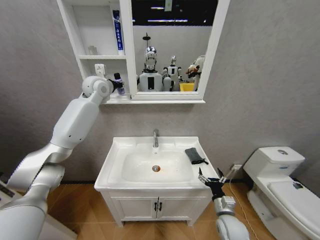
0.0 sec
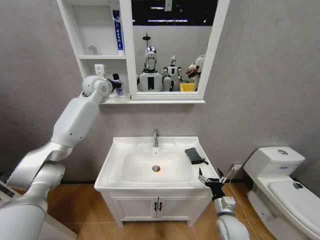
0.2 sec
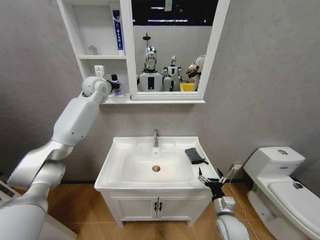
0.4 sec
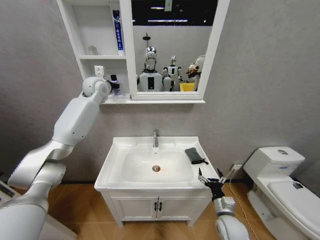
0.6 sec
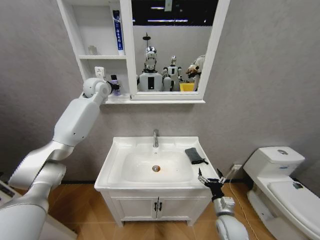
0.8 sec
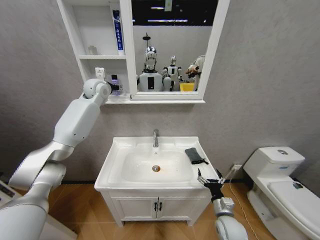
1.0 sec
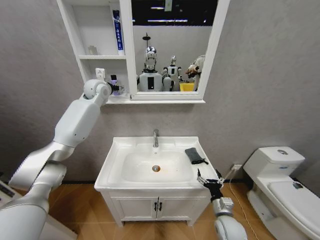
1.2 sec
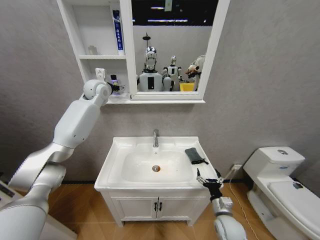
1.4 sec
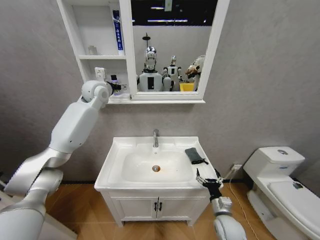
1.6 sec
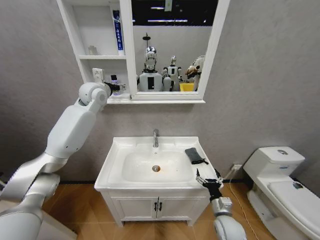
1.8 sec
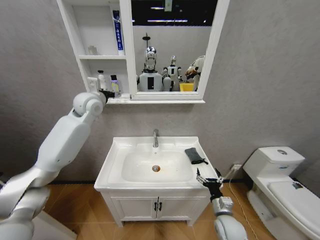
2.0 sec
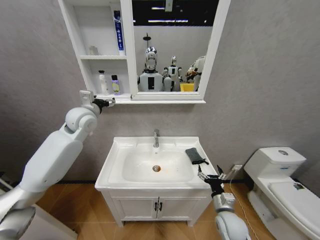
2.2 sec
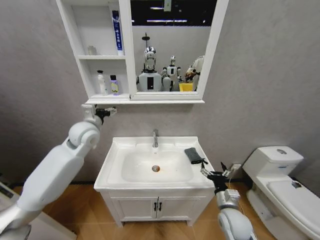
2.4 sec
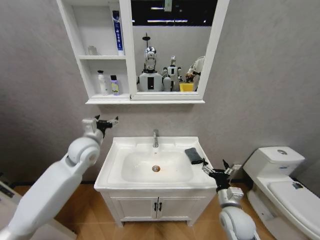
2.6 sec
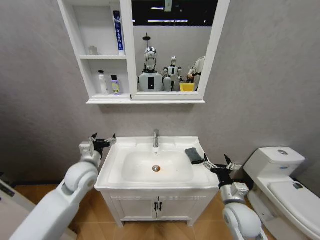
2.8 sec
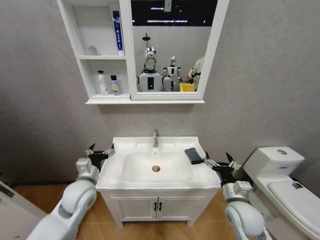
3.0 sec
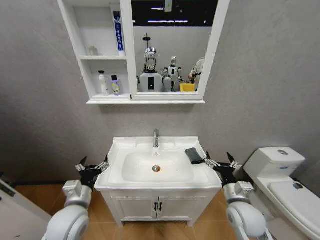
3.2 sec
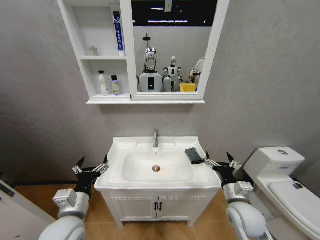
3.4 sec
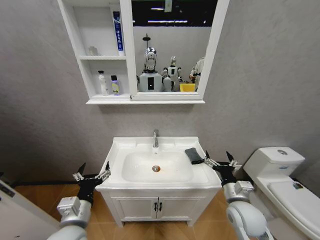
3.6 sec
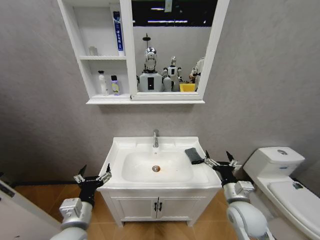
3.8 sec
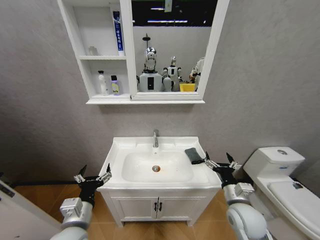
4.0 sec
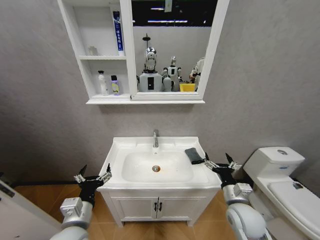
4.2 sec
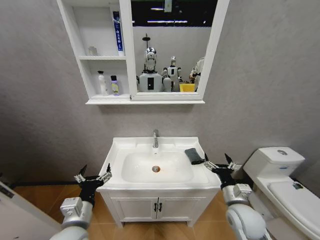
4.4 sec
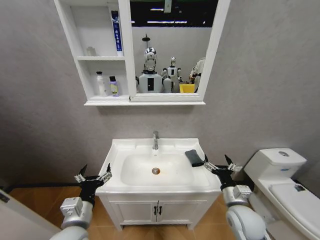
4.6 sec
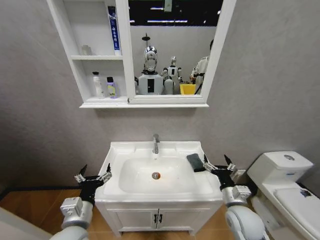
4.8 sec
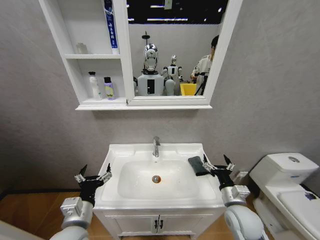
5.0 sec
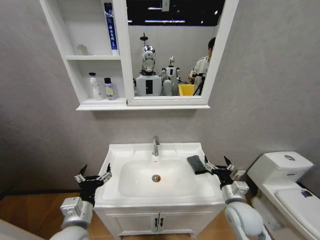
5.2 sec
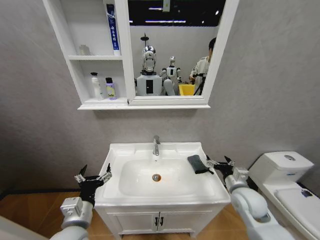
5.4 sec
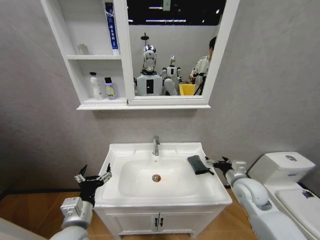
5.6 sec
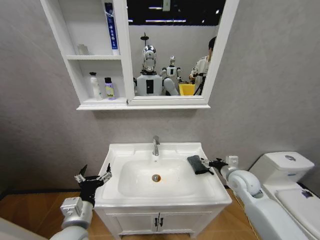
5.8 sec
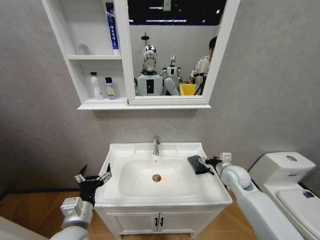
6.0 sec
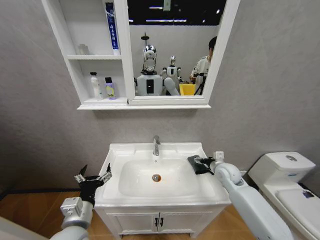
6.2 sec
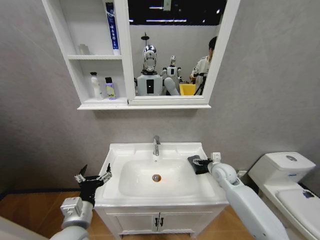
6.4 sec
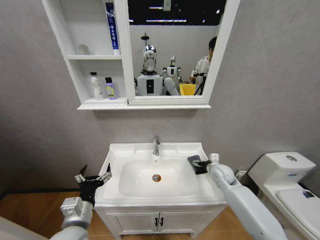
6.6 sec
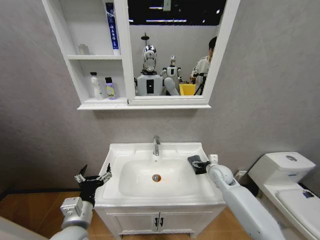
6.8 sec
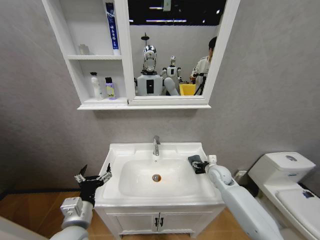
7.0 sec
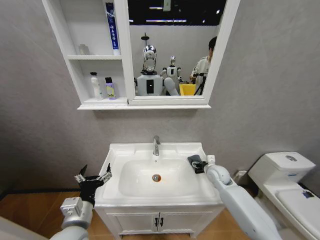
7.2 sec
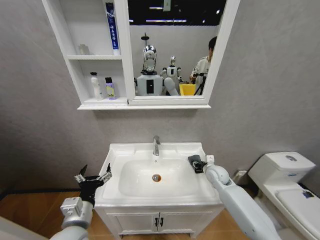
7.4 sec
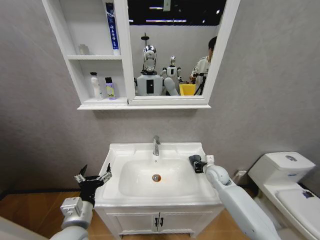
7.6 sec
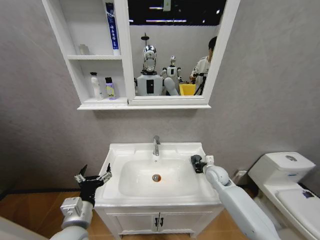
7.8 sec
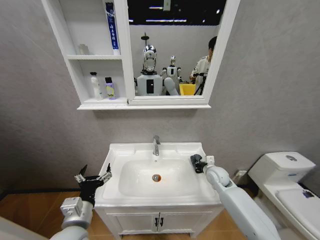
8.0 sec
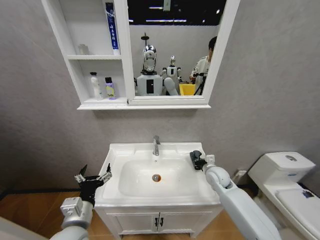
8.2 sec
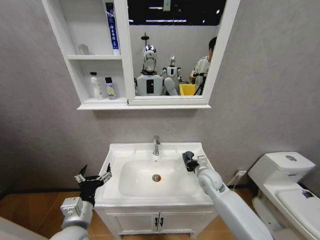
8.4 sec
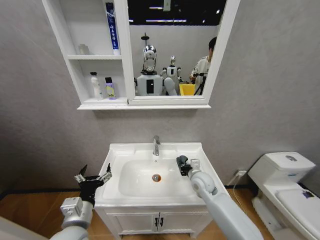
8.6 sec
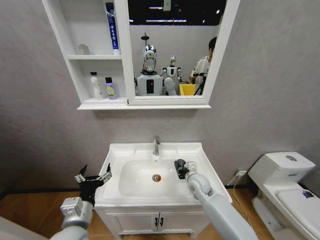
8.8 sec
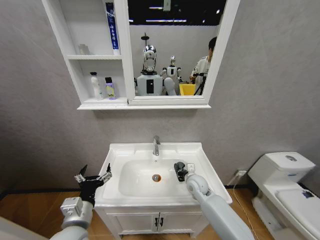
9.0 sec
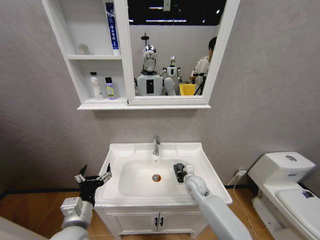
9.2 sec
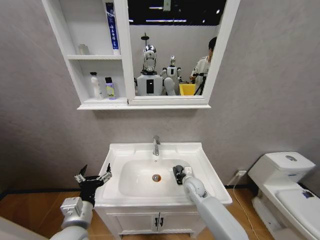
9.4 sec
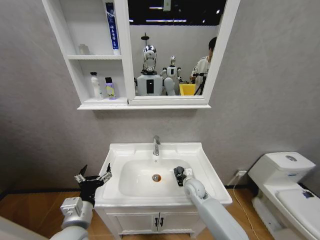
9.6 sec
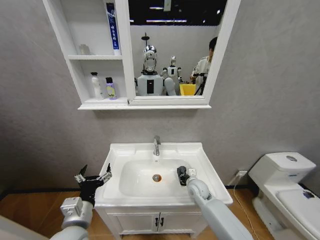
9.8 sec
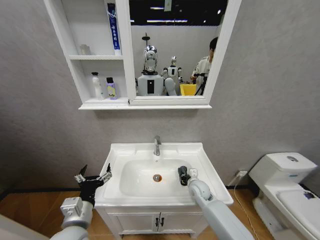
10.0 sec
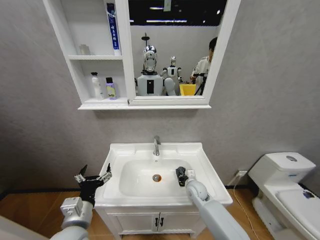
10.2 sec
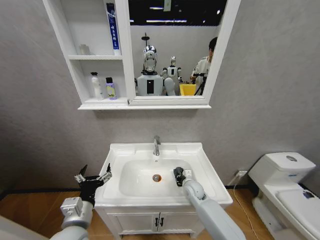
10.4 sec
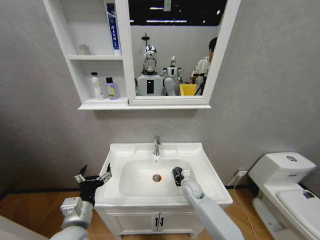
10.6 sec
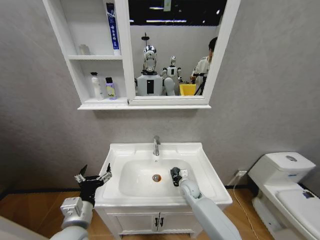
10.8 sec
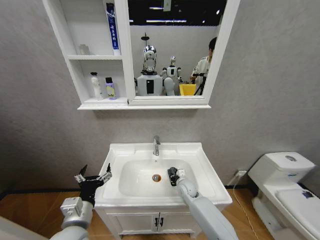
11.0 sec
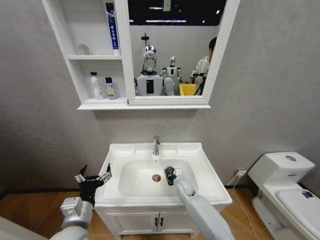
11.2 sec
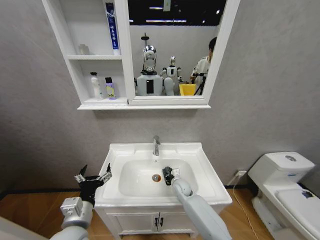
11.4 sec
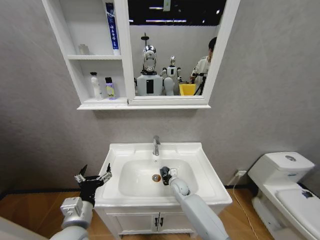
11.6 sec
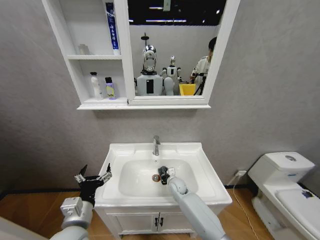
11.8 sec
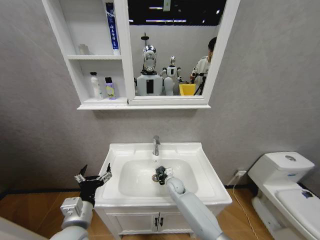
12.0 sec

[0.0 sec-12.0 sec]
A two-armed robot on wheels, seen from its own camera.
Task of the whole recording: Move facial cleanser and shampoo from washbasin to cabinet, then wipe washbasin with towel.
0.0 sec to 1.6 sec: The left gripper opens up.
1.6 sec to 3.0 sec: The left gripper heads backward and downward, covering roughly 40 cm, while the right gripper heads upward, covering some 10 cm.
3.0 sec to 4.4 sec: The left gripper goes some 15 cm backward.
4.4 sec to 6.0 sec: The right gripper goes approximately 15 cm forward.
6.0 sec to 7.6 sec: The right gripper shifts about 5 cm downward, and closes.
7.6 sec to 9.0 sec: The right gripper moves to the left, some 10 cm.
9.0 sec to 10.4 sec: The right gripper goes some 5 cm downward.
10.4 sec to 12.0 sec: The right gripper is displaced to the left by about 10 cm.

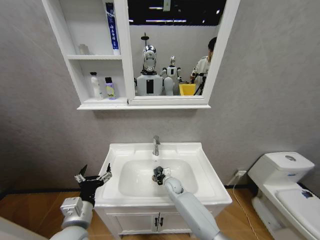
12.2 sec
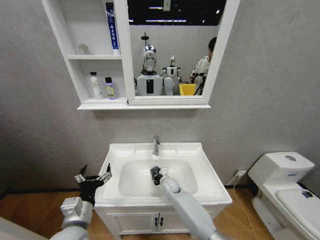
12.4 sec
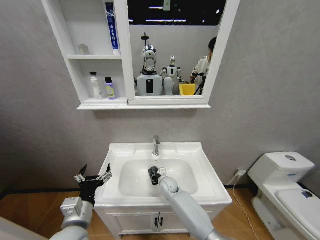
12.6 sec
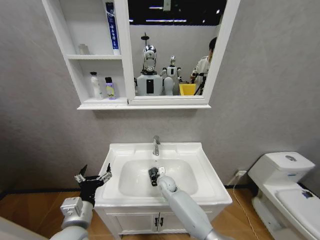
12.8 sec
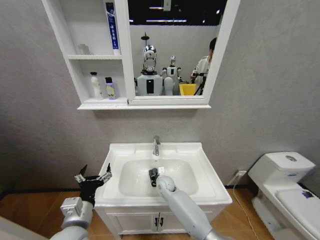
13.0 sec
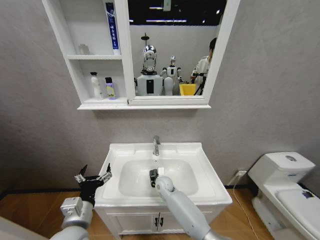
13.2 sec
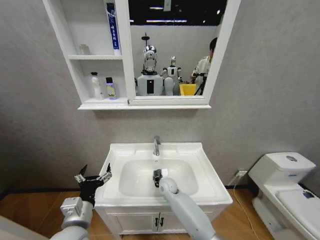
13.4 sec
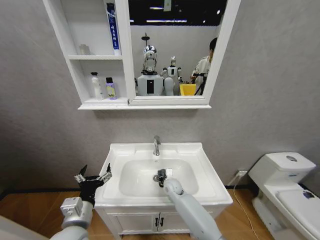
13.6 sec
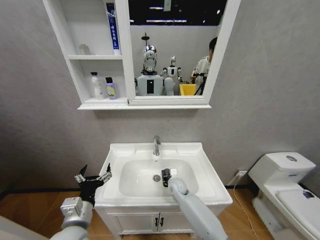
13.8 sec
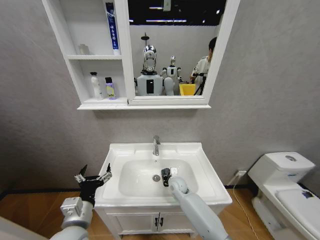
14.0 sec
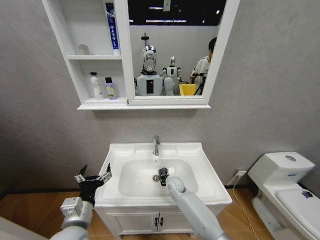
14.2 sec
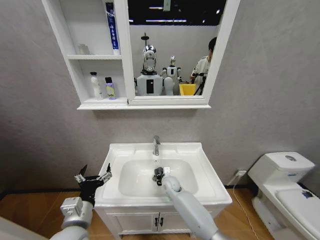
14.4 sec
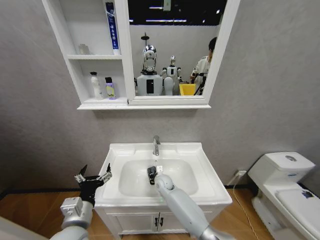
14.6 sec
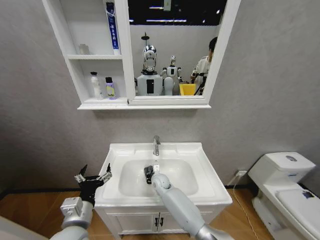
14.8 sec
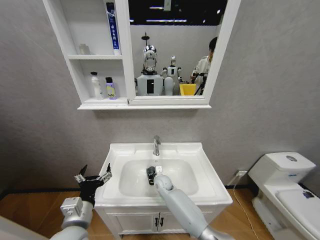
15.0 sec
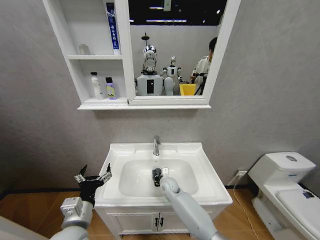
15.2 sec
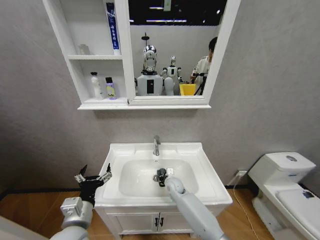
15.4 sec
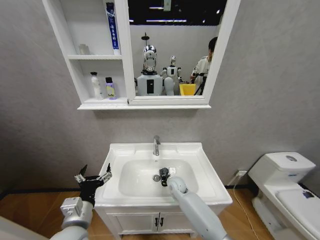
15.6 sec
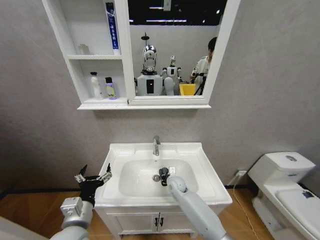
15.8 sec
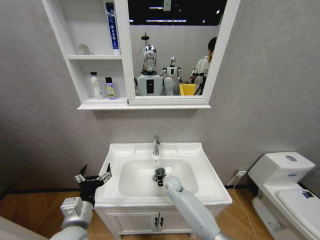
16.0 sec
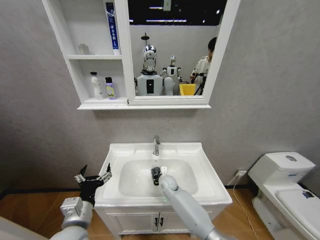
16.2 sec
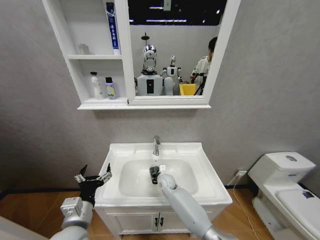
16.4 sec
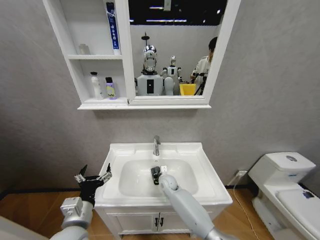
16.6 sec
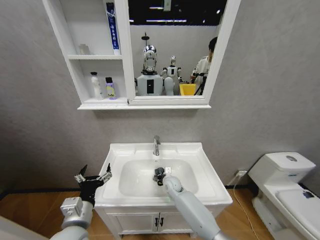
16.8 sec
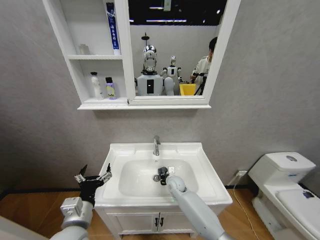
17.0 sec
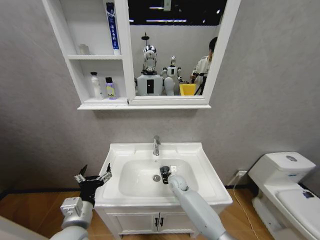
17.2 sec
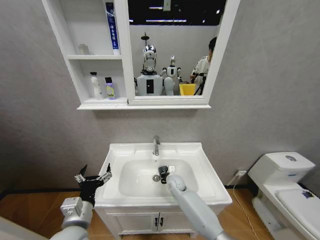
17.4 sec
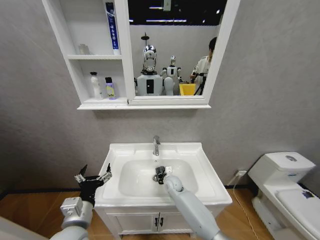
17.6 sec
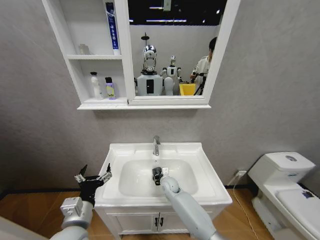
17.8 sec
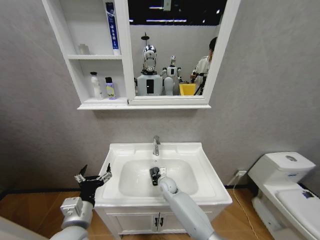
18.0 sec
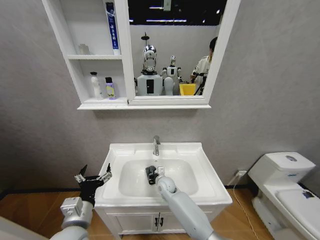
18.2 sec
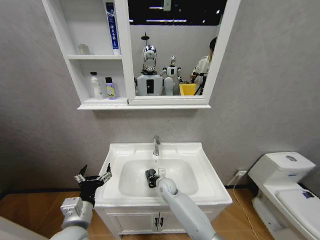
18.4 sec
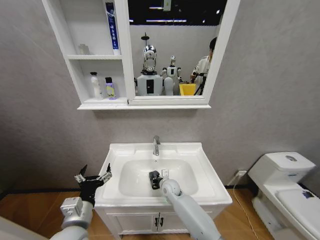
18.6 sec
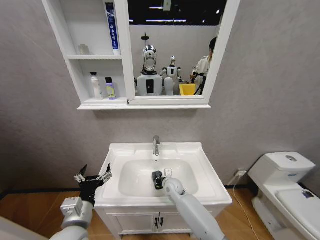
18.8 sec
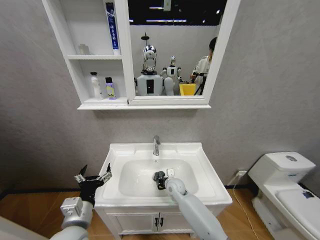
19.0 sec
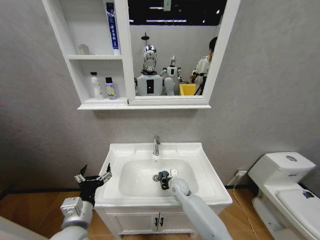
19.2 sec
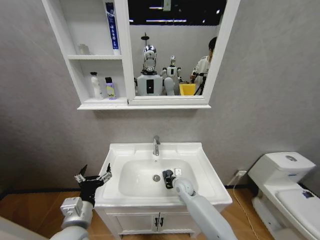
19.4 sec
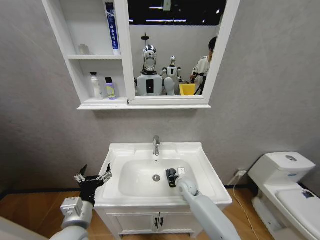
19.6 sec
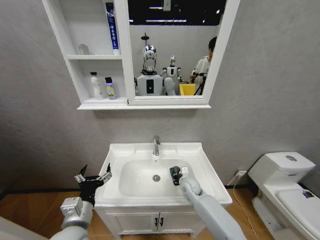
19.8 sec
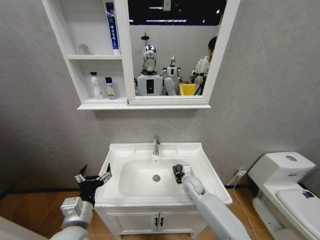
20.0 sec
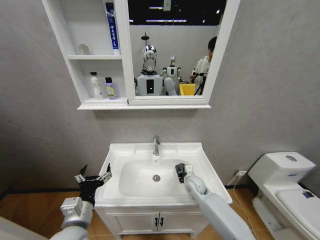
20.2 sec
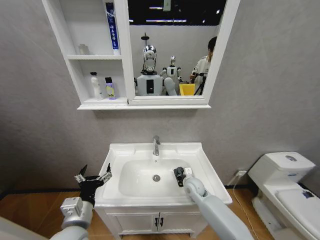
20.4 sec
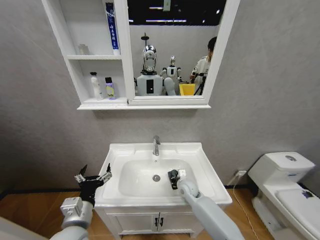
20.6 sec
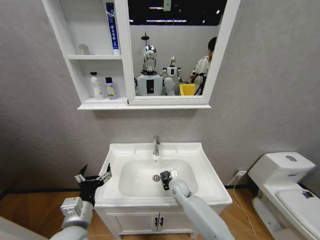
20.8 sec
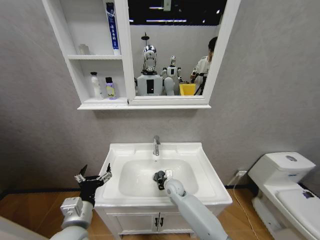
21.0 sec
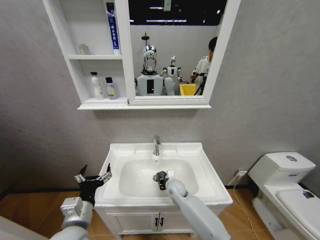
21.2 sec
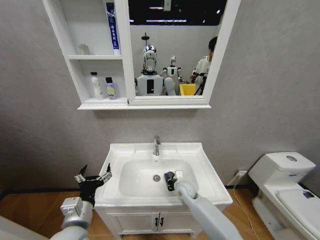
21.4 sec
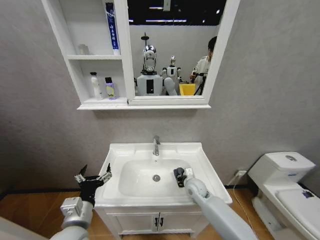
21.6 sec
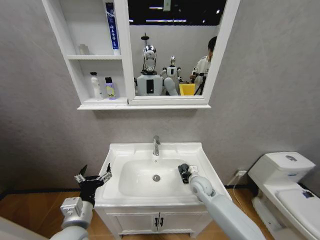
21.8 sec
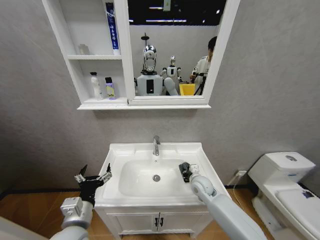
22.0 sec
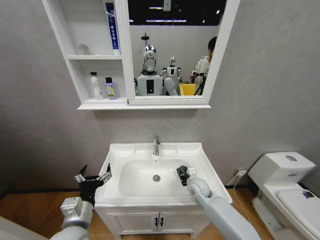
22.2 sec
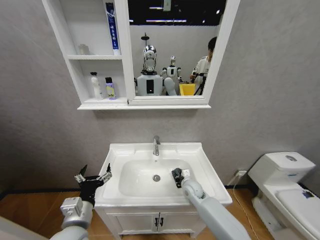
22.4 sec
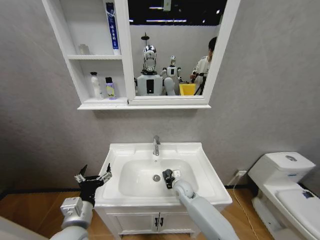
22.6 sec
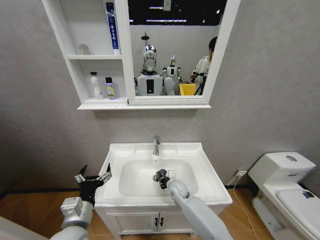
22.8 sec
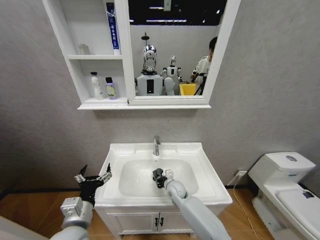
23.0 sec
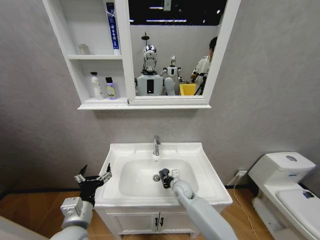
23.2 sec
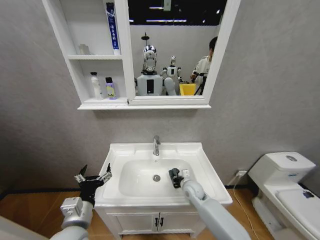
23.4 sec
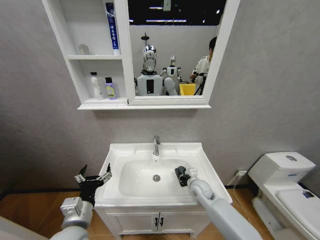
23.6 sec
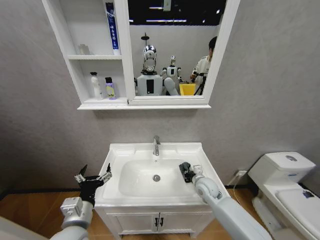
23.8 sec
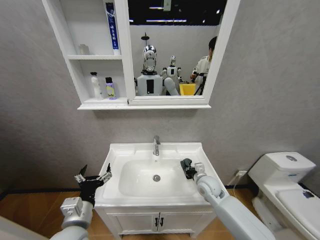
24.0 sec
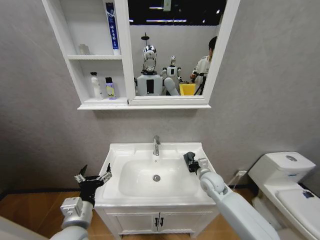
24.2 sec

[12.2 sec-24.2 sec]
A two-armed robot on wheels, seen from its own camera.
Task of the whole recording: Move facial cleanser and shampoo from washbasin to cabinet, then wipe washbasin with towel.
12.2 sec to 13.8 sec: The grippers make only small movements.
16.6 sec to 18.2 sec: The grippers move only a little.
18.2 sec to 19.8 sec: The right gripper shifts some 15 cm to the right.
19.8 sec to 21.2 sec: The right gripper heads to the left, covering approximately 10 cm.
22.6 sec to 24.2 sec: The right gripper shifts roughly 15 cm to the right and upward.
